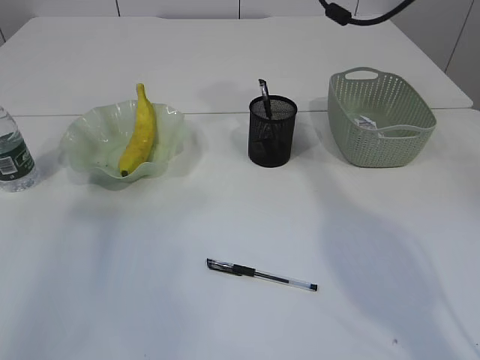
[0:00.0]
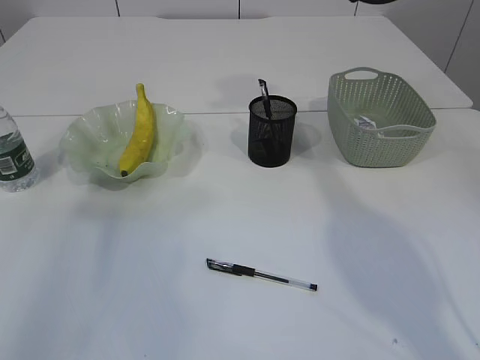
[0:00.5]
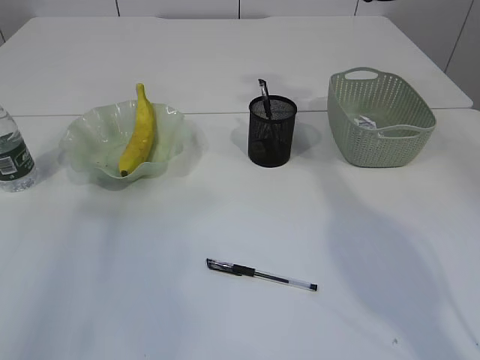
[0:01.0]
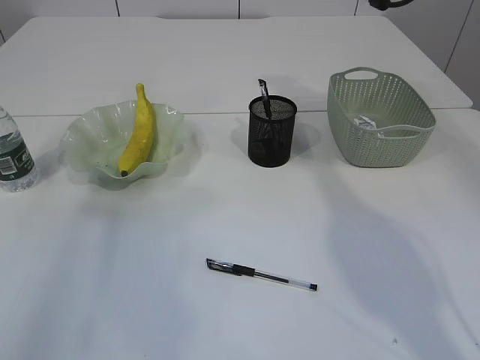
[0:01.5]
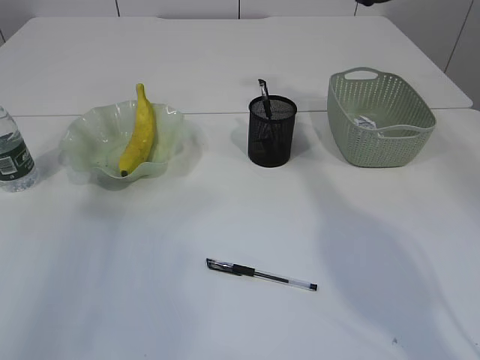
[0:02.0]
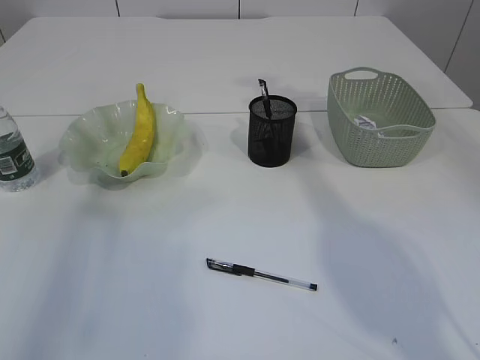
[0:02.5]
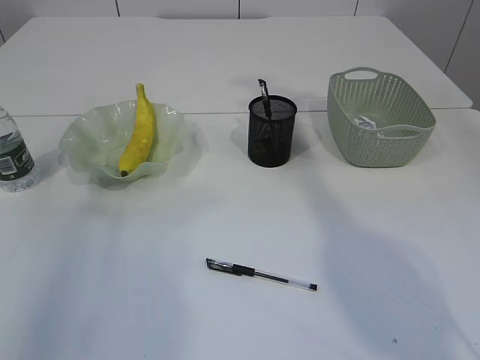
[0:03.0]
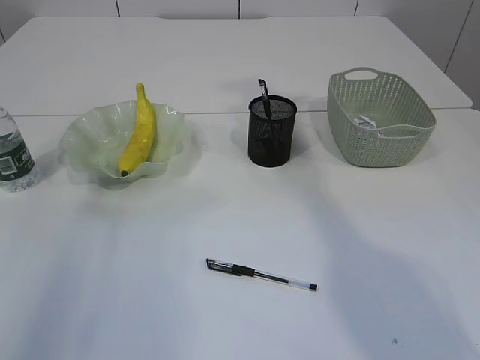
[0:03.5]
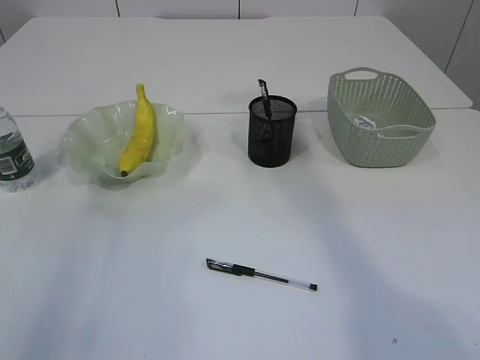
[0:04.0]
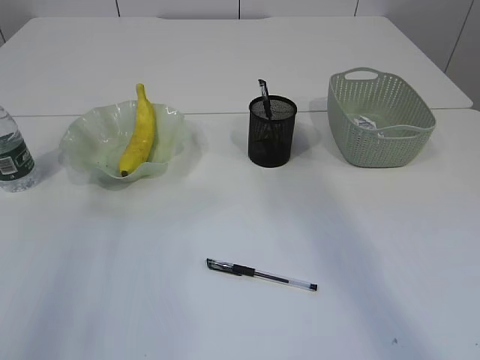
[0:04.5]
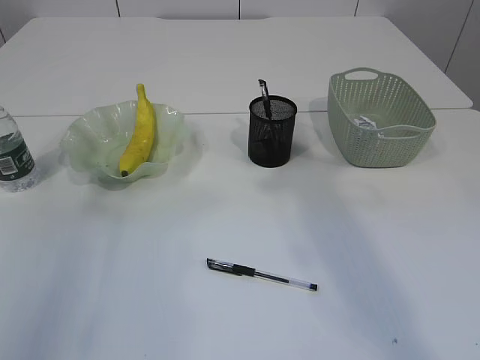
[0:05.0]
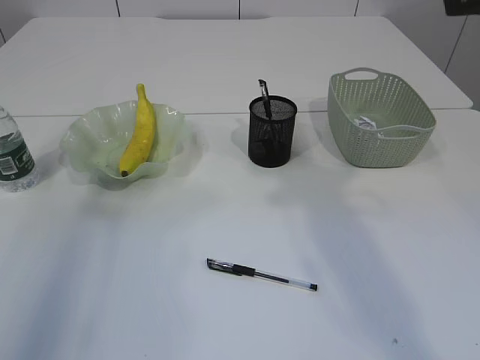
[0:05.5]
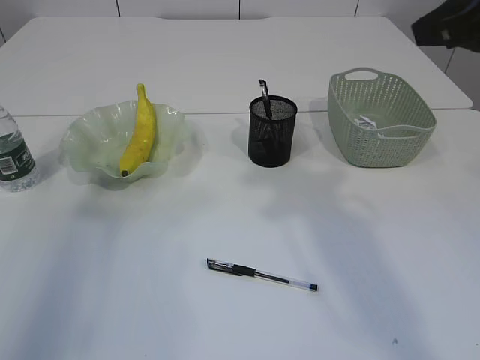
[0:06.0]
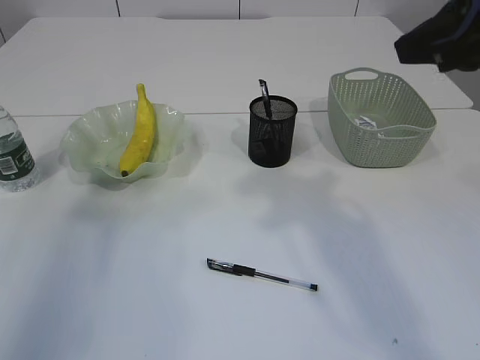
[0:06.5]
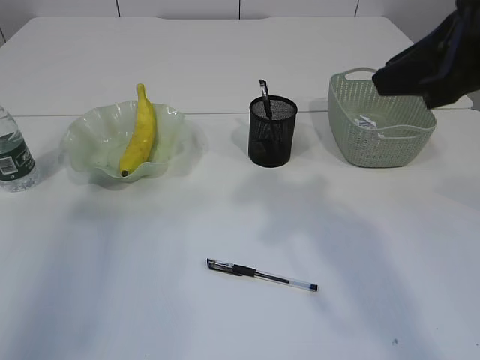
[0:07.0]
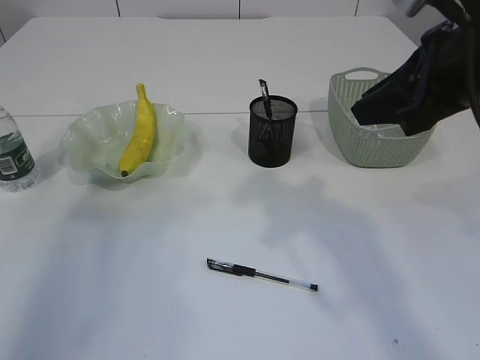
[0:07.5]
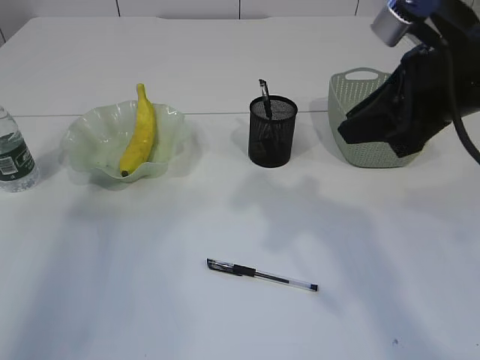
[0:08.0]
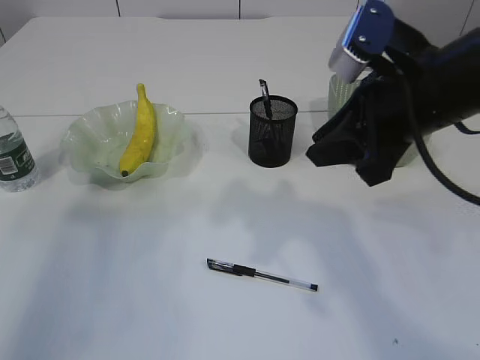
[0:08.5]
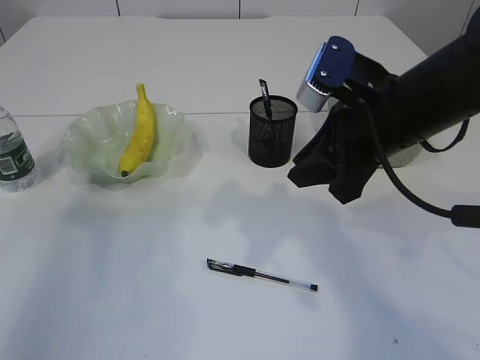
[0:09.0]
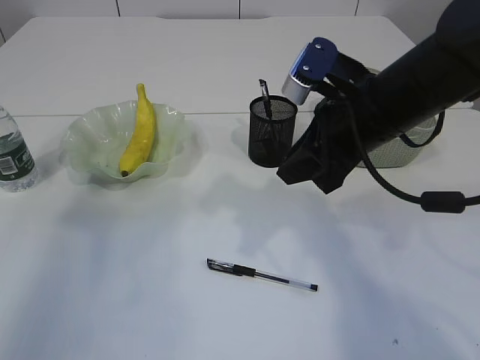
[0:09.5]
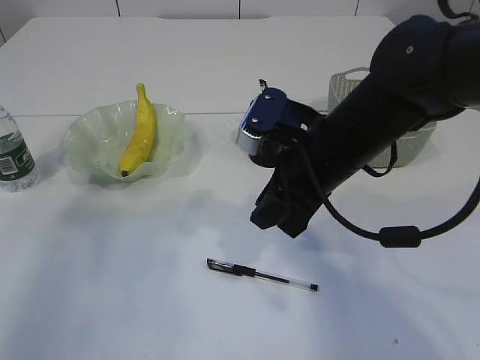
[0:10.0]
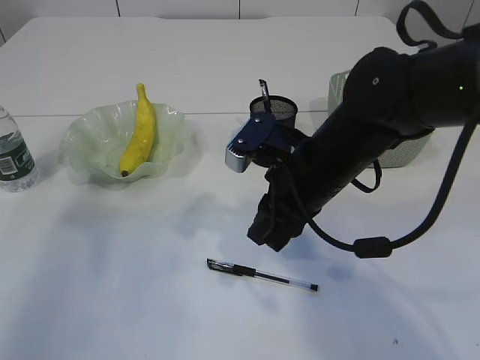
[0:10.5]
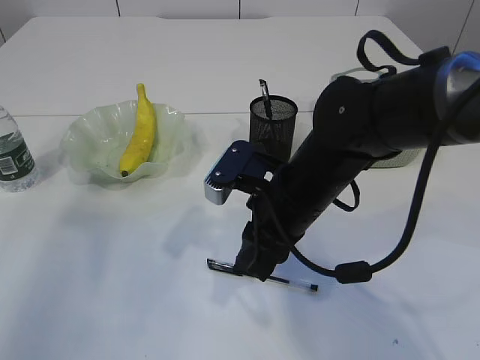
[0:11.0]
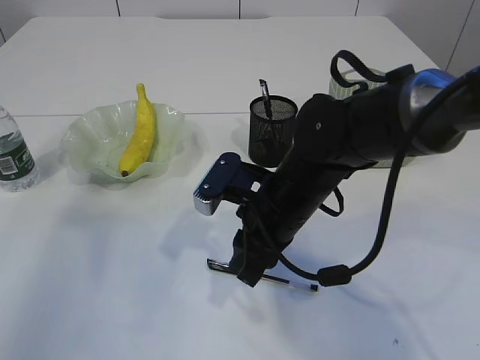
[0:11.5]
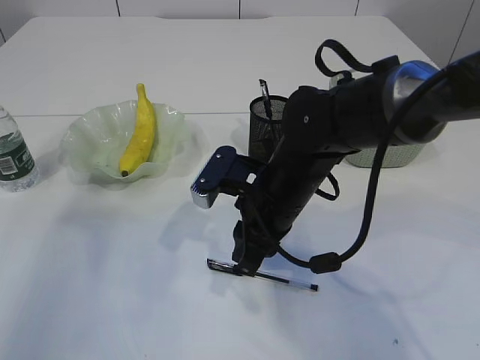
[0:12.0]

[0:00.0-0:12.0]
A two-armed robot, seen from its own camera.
0:00.0 to 0:02.0: The right gripper shifts roughly 5 cm to the right.
0:04.0 to 0:06.0: The right gripper travels downward and backward by roughly 15 cm.
0:06.0 to 0:08.0: The right gripper heads downward, covering some 5 cm.
0:08.0 to 0:10.0: The right gripper shifts about 15 cm to the left and downward.
0:10.0 to 0:12.0: The right gripper heads downward, covering some 5 cm.

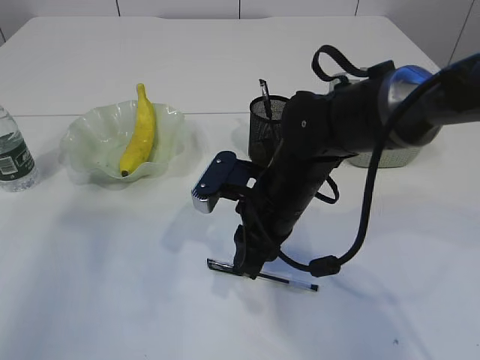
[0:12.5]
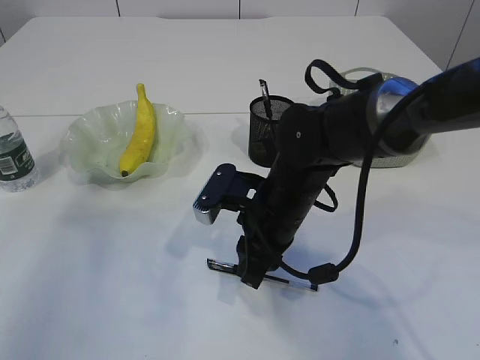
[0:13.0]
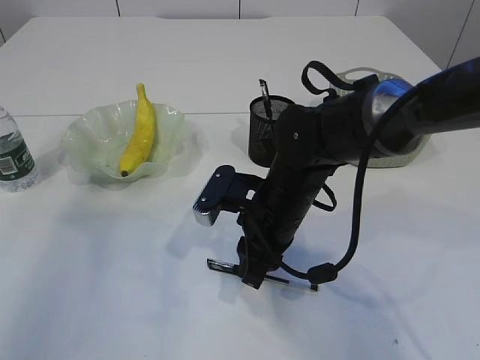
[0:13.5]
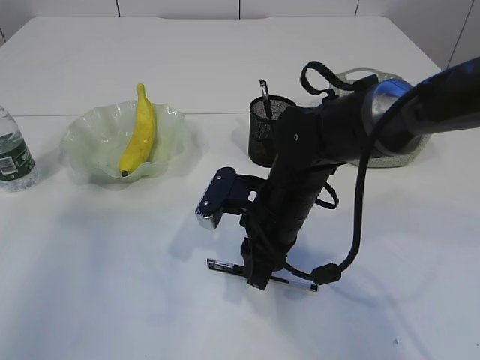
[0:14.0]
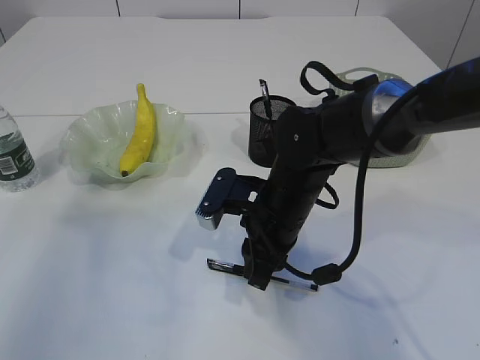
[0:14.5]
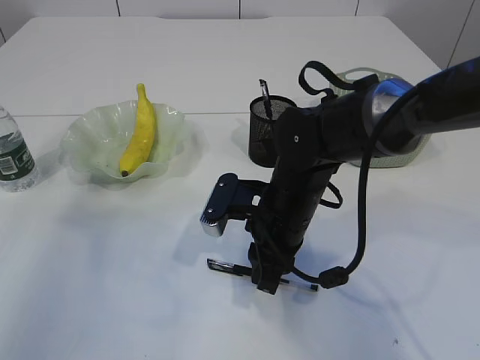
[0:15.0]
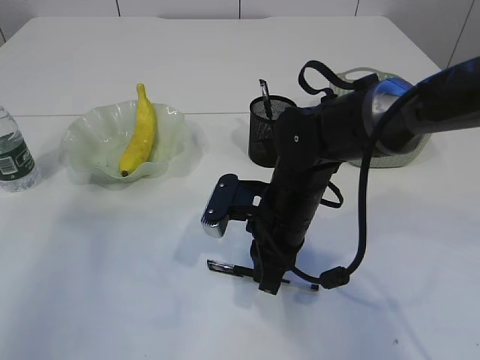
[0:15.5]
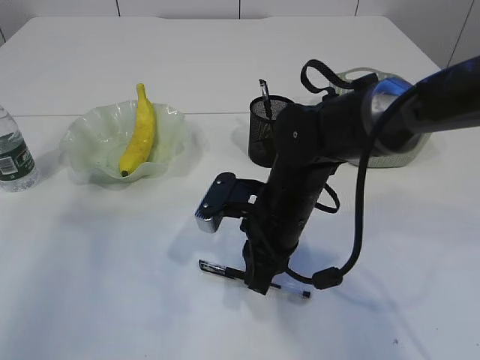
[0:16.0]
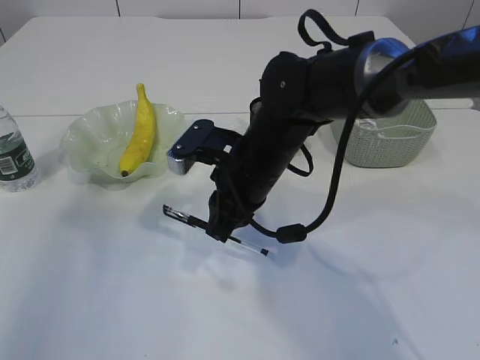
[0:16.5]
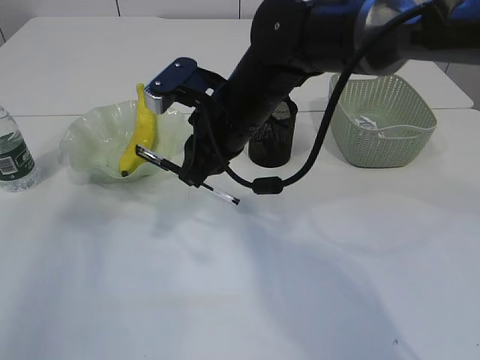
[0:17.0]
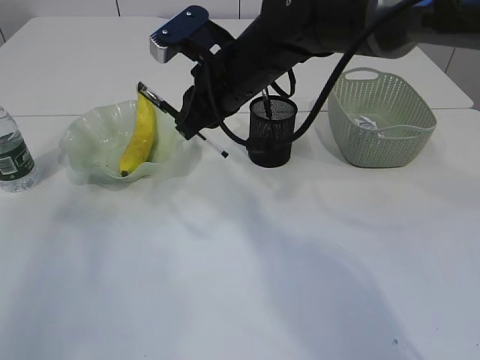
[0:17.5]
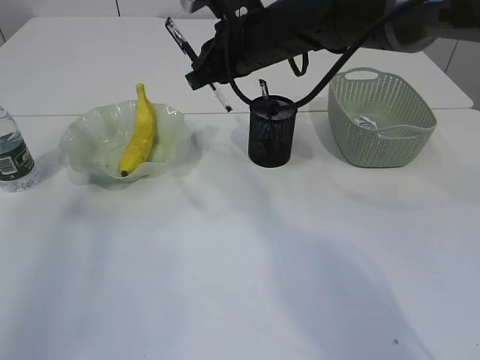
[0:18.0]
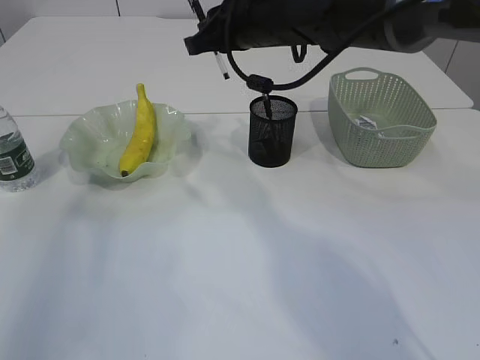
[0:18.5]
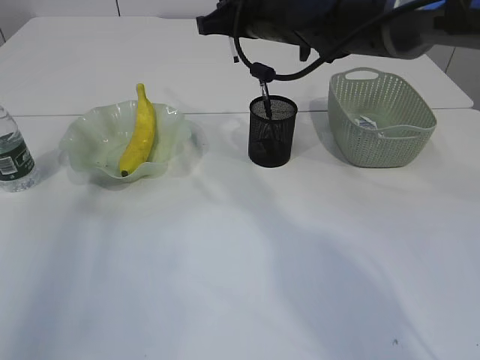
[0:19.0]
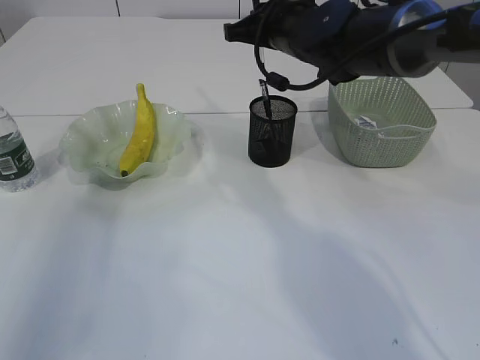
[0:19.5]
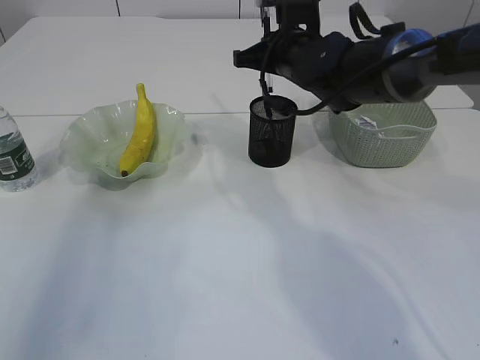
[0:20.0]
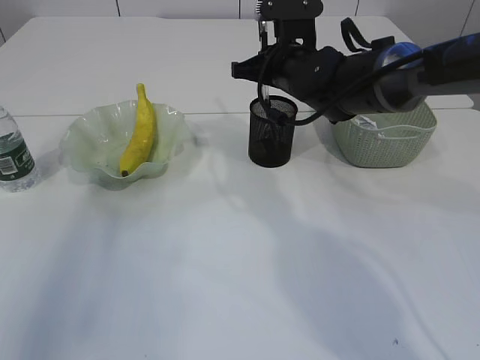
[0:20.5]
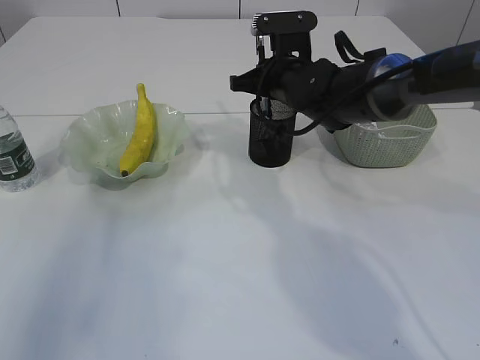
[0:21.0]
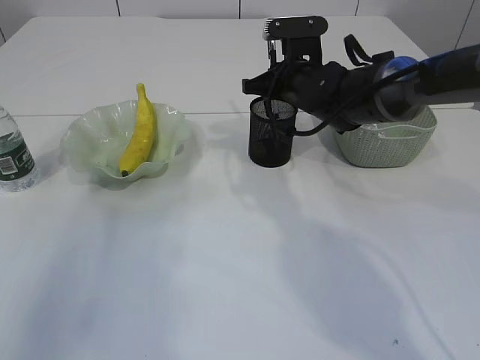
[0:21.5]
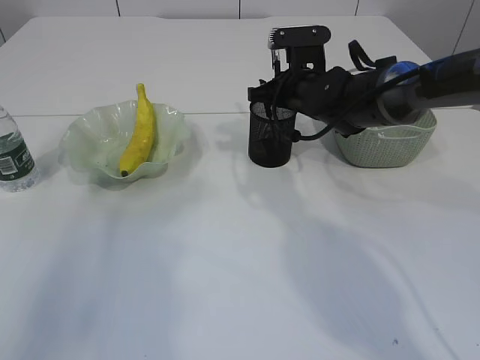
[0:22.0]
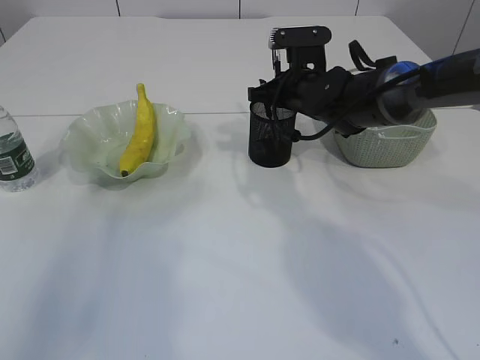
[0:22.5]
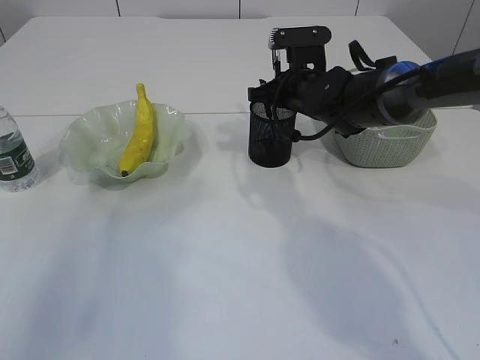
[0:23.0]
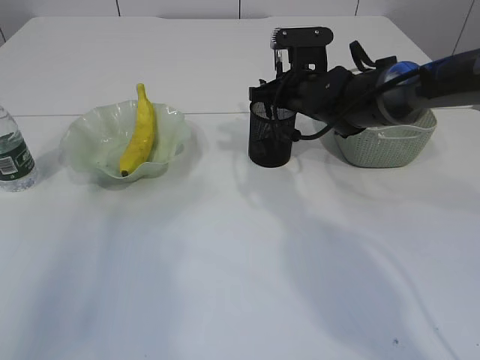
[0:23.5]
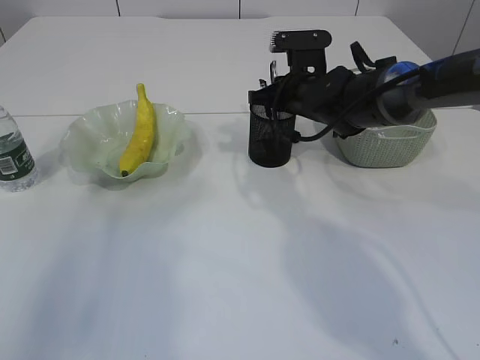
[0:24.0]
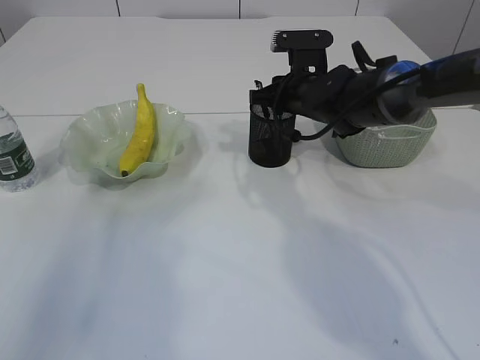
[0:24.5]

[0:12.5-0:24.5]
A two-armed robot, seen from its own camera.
Step, 0:12.5 to 0:16.5: Pick up the pen with right arm.
0:12.5 to 0:14.5: The grippers move only a little.
0:14.5 to 0:16.5: The right gripper shifts by about 5 cm.
0:16.5 to 0:18.5: The right gripper goes some 15 cm upward and forward.
0:18.5 to 0:20.5: The right gripper moves downward, roughly 5 cm.
0:20.5 to 0:22.5: The grippers make only small movements.
0:22.5 to 0:24.5: The two grippers keep their place.

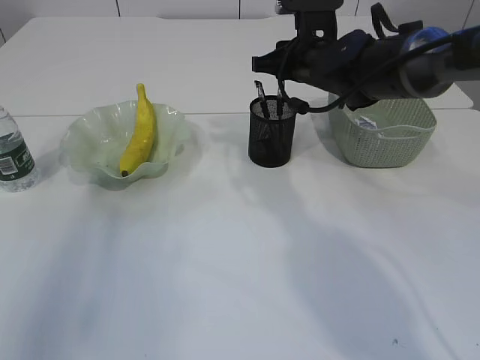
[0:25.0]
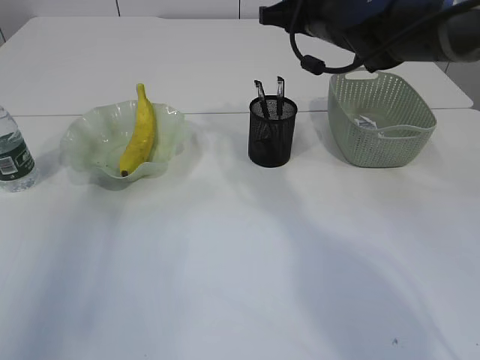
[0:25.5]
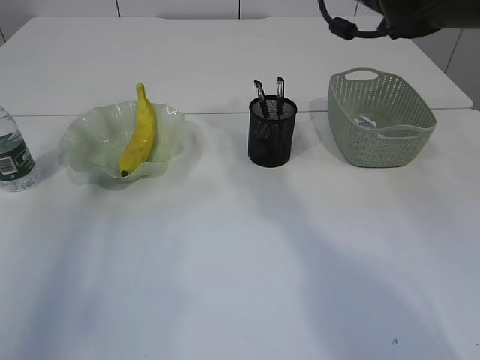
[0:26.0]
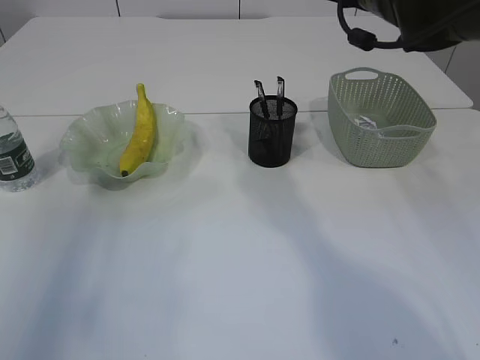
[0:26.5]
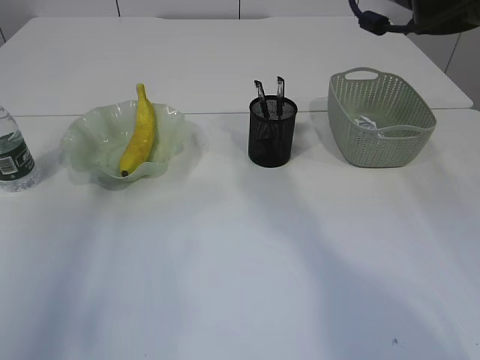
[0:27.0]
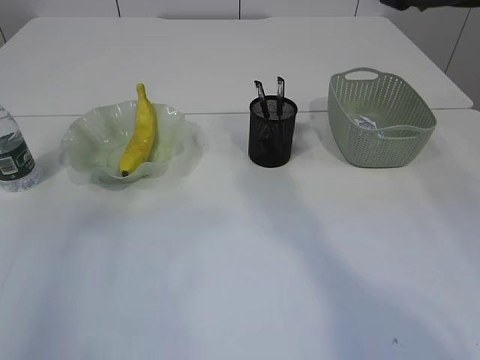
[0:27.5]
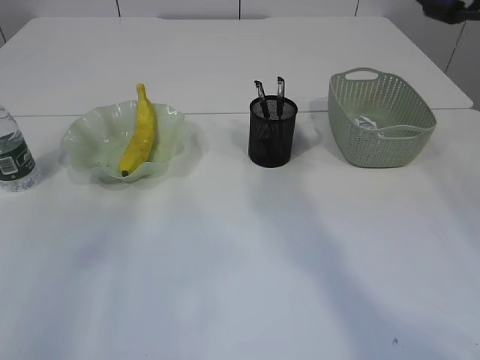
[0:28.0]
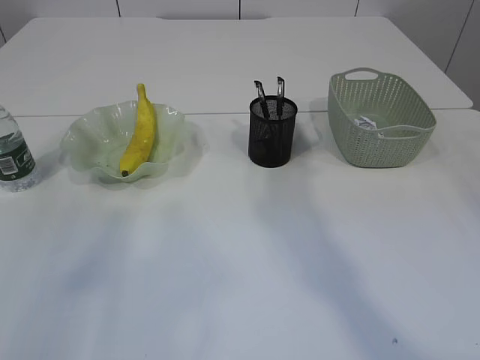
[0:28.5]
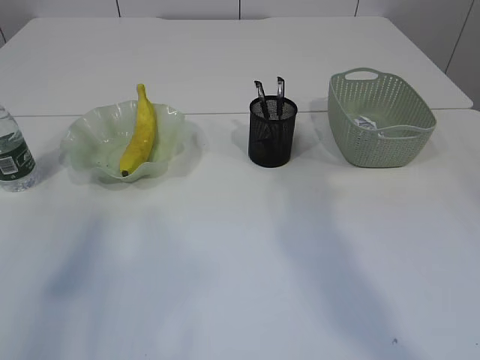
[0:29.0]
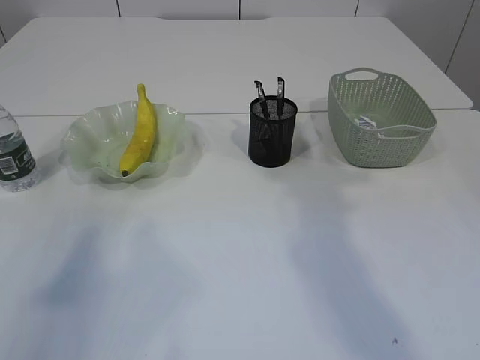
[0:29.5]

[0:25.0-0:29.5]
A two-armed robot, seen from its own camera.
0:25.0 to 0:27.0: The right gripper goes about 15 cm upward and backward.
0:27.0 to 0:29.5: The right gripper is displaced backward by about 15 cm.
